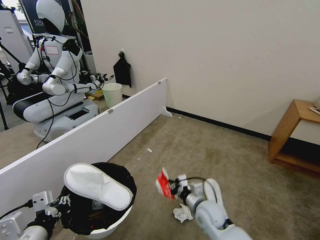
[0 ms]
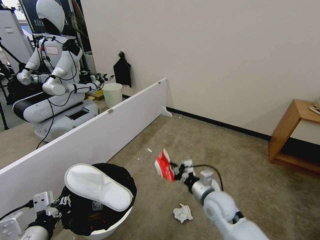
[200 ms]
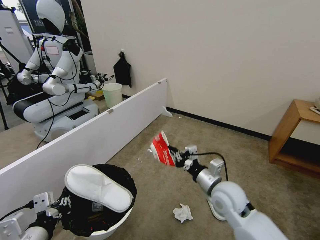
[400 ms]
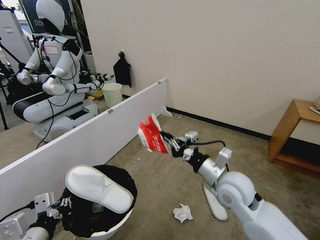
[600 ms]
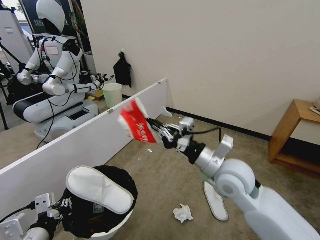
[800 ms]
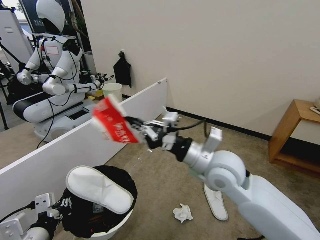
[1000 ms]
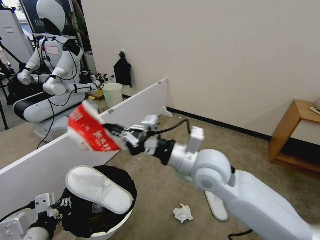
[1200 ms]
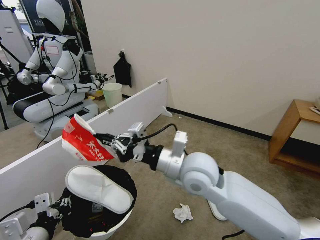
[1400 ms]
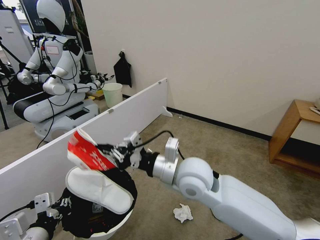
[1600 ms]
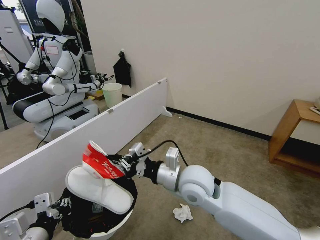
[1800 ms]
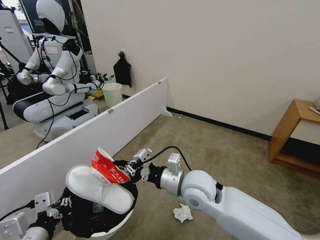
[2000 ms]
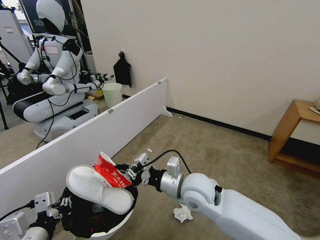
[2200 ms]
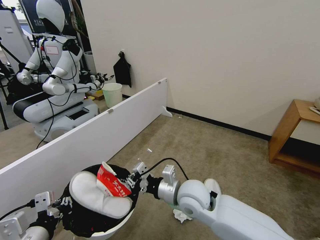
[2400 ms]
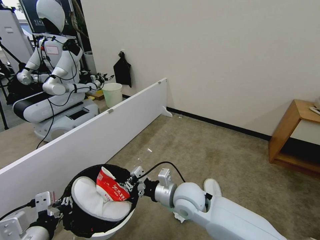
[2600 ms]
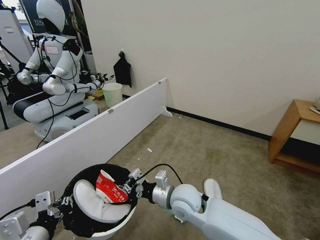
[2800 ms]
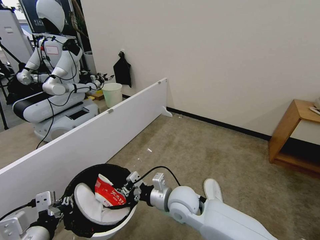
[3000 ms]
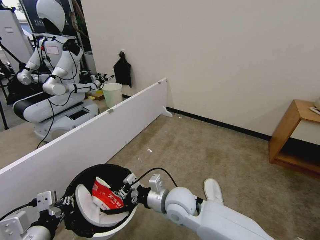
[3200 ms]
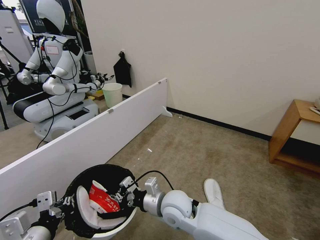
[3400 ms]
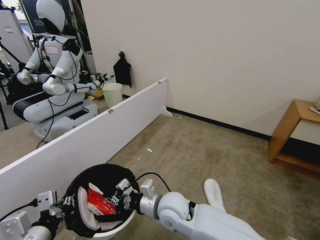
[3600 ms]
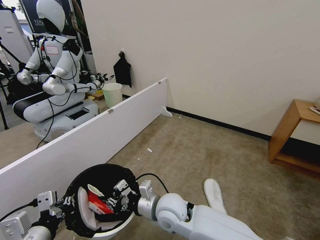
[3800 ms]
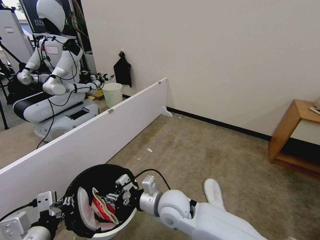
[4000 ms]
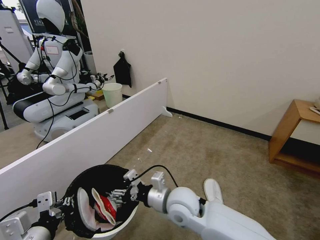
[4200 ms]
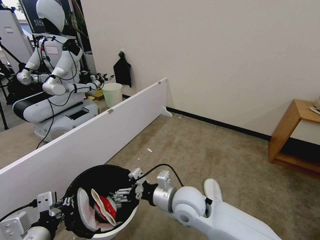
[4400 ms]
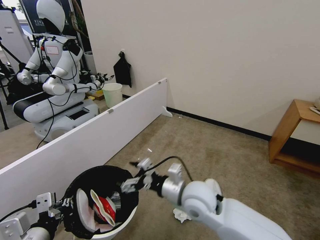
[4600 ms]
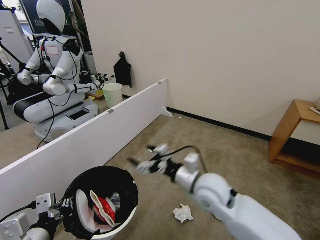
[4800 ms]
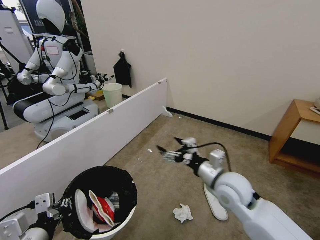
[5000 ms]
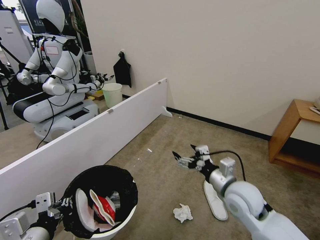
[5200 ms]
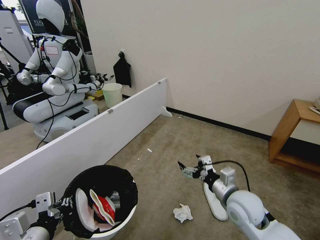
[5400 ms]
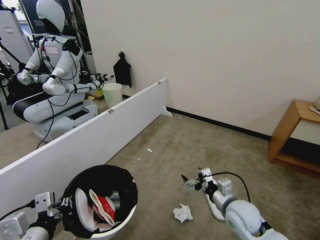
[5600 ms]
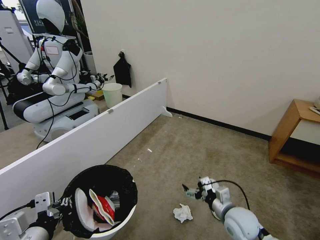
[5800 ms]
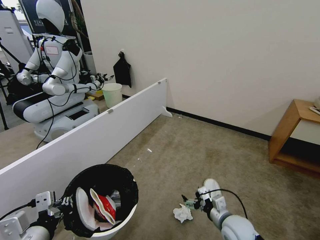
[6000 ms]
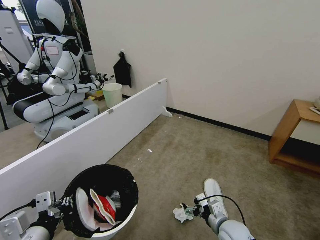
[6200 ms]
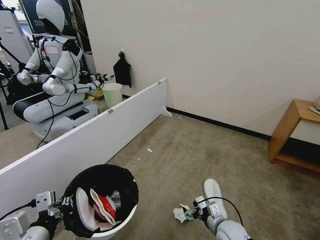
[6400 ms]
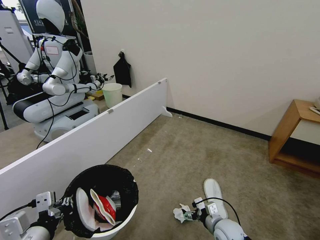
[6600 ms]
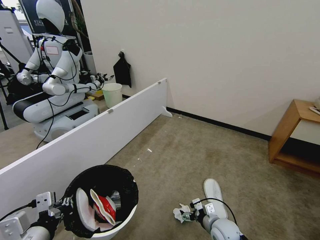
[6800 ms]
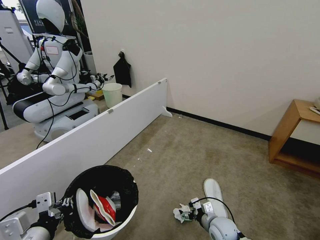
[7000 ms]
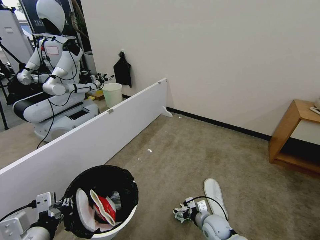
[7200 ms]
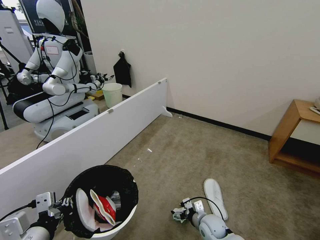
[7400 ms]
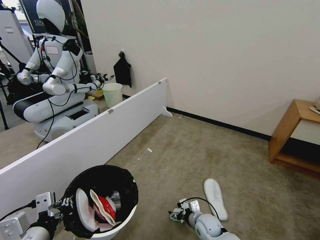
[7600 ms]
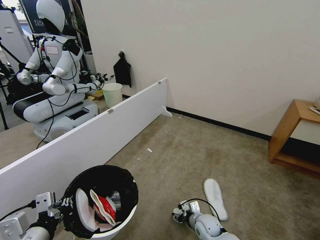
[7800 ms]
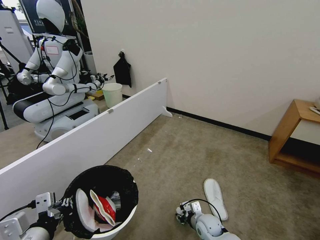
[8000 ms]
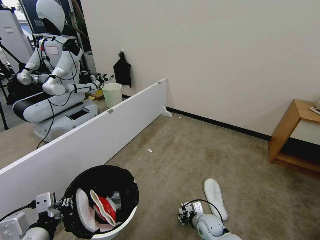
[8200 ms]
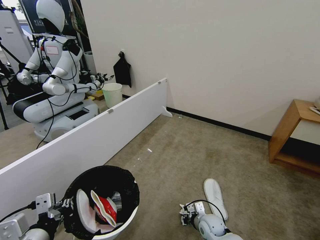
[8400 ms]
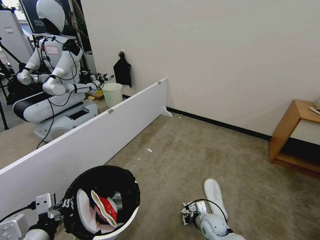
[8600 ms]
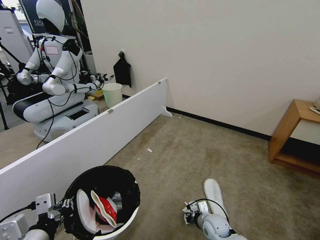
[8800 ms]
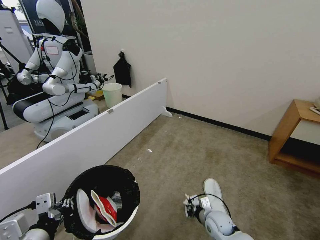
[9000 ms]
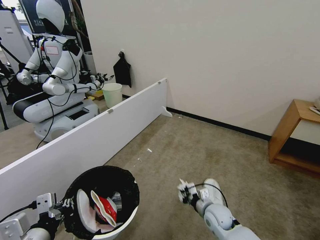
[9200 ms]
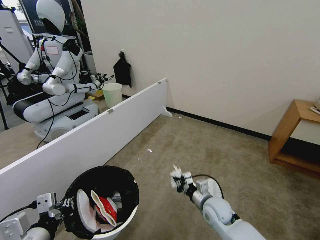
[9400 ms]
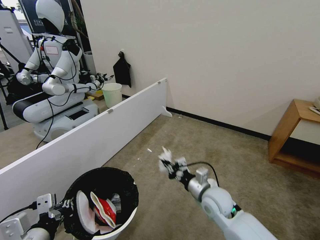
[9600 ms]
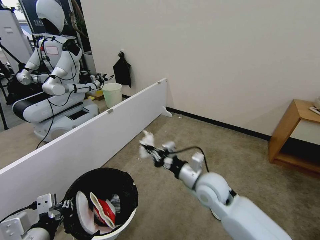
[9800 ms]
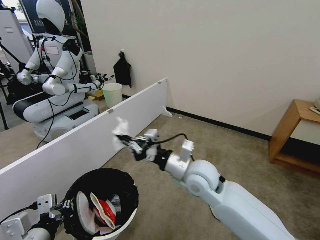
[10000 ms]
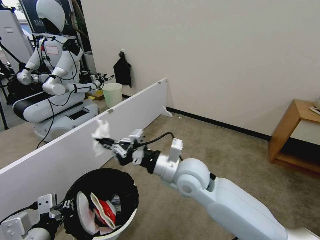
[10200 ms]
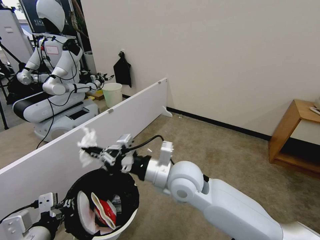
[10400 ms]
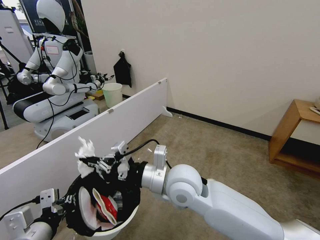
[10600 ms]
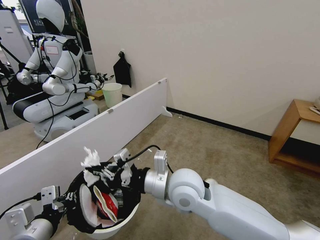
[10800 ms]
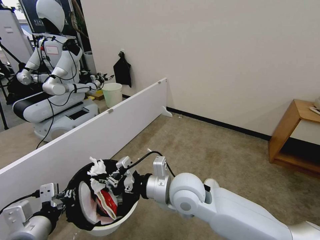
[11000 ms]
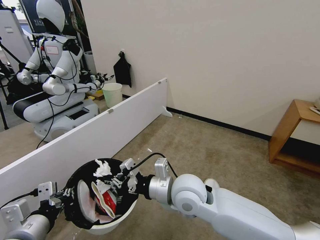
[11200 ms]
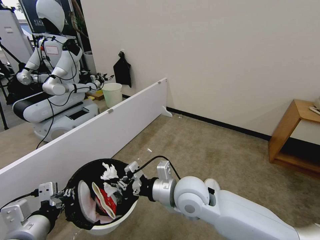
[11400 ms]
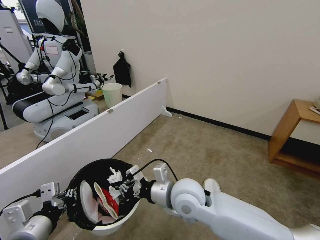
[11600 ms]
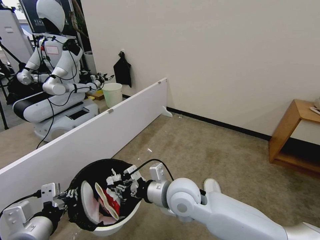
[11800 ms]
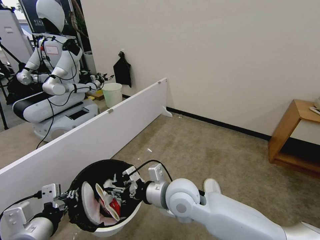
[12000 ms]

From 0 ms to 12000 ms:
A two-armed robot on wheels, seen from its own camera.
Task of the whole recording: Pick up the trash bin, then pick up the garbage from the floor and place it into the trash bin.
From 0 ms to 1600 ms: The right gripper moves upward and to the left, approximately 25 cm.
From 1600 ms to 3000 ms: The right gripper goes roughly 15 cm downward.
From 3000 ms to 4400 ms: The right gripper opens.
From 4400 ms to 6000 ms: The right gripper is displaced to the right and downward by some 20 cm.
From 6000 ms to 7600 ms: The right gripper travels downward and to the left by roughly 15 cm.
From 7600 ms to 9000 ms: The right gripper closes its fingers.
From 9000 ms to 10400 ms: The right gripper is displaced upward and to the left by about 35 cm.
From 10400 ms to 12000 ms: The right gripper shifts about 5 cm downward, and opens up.

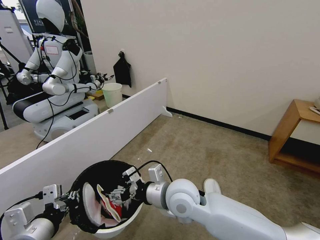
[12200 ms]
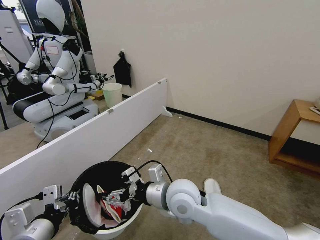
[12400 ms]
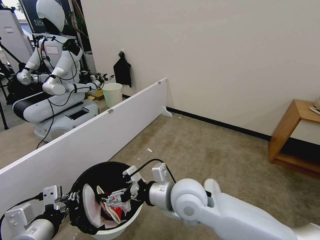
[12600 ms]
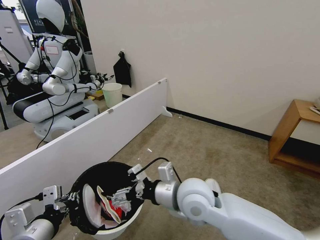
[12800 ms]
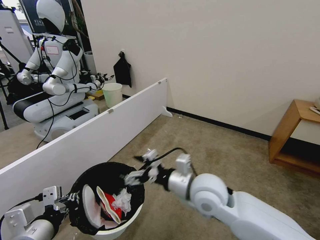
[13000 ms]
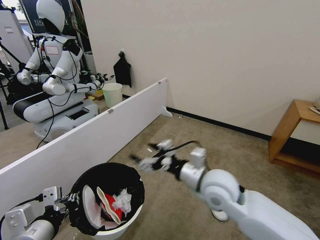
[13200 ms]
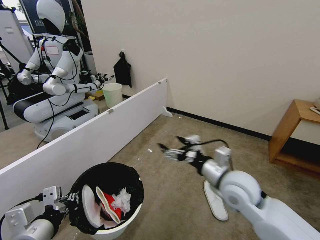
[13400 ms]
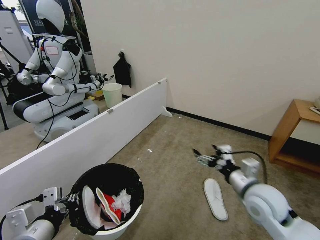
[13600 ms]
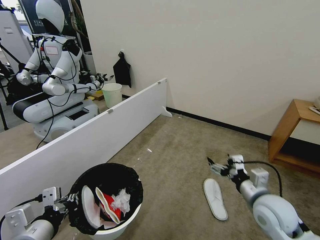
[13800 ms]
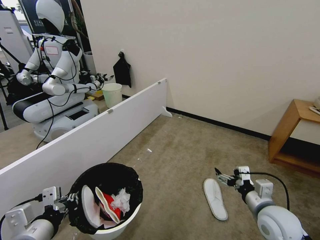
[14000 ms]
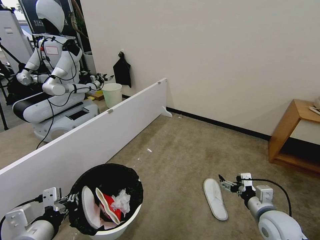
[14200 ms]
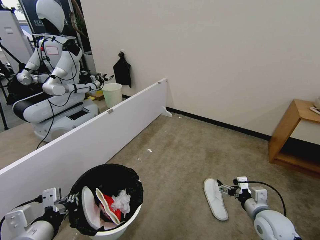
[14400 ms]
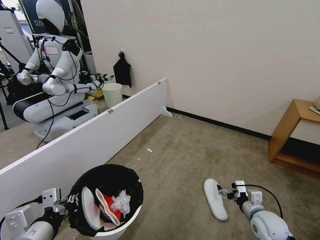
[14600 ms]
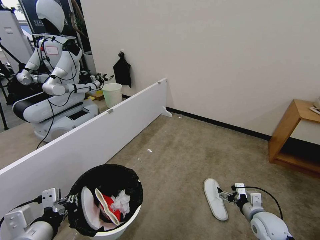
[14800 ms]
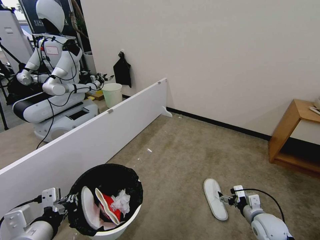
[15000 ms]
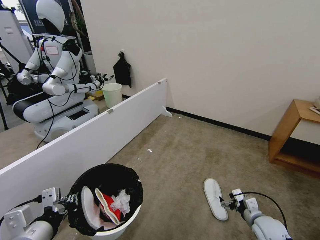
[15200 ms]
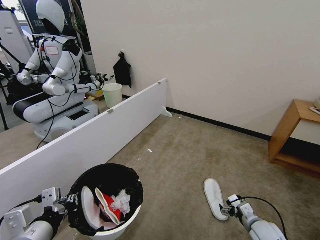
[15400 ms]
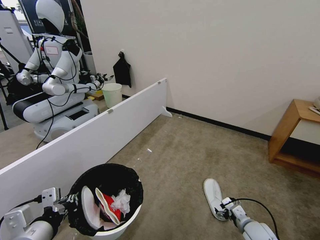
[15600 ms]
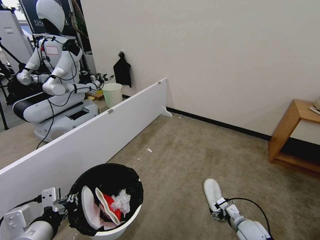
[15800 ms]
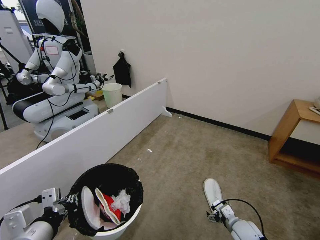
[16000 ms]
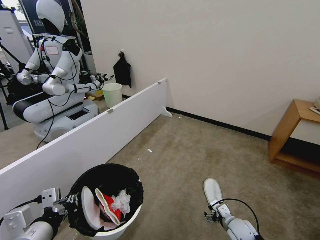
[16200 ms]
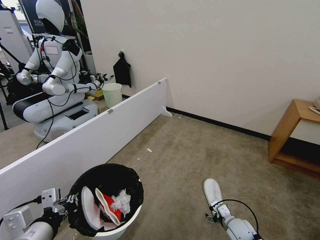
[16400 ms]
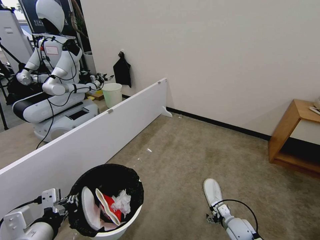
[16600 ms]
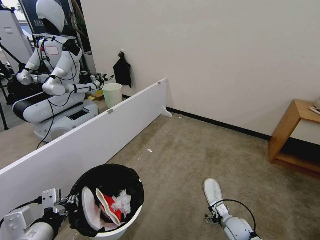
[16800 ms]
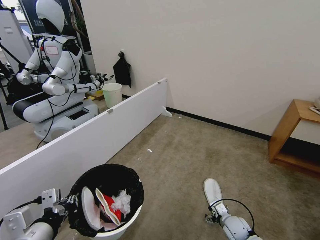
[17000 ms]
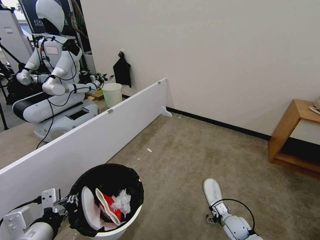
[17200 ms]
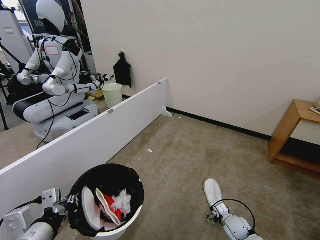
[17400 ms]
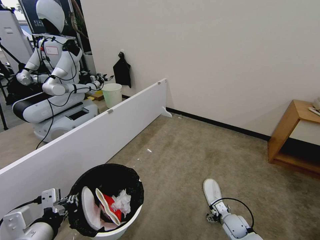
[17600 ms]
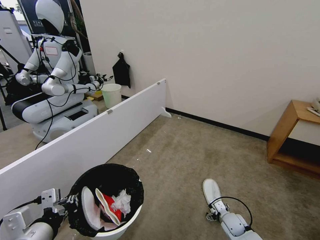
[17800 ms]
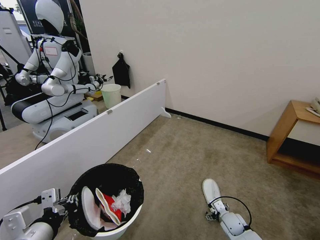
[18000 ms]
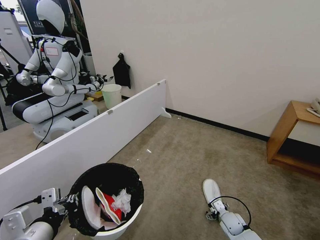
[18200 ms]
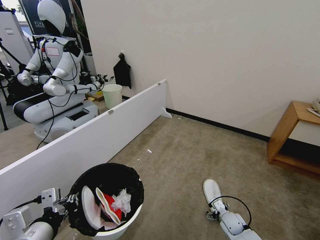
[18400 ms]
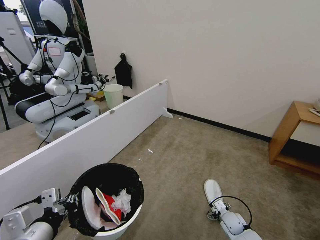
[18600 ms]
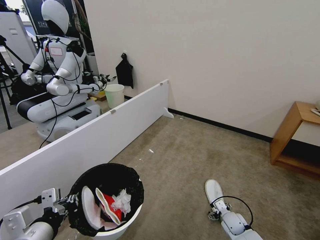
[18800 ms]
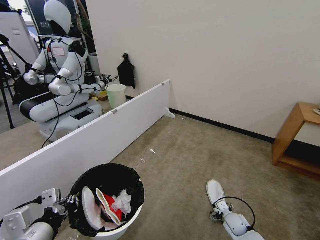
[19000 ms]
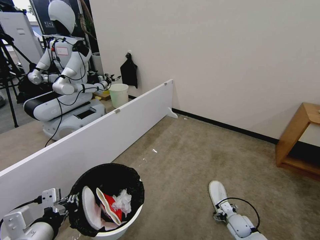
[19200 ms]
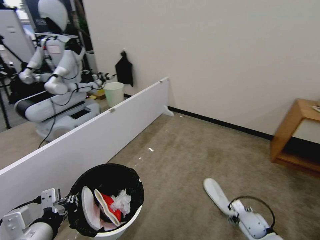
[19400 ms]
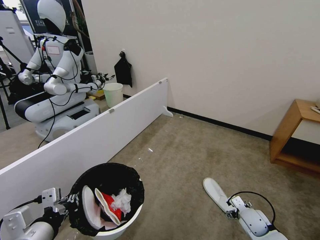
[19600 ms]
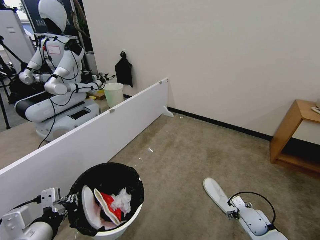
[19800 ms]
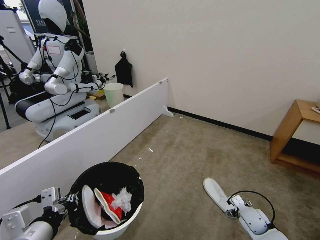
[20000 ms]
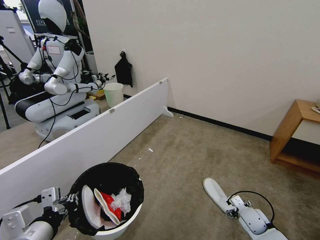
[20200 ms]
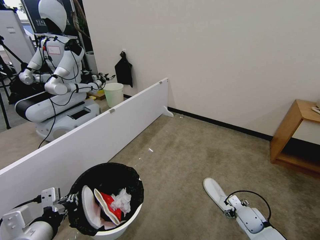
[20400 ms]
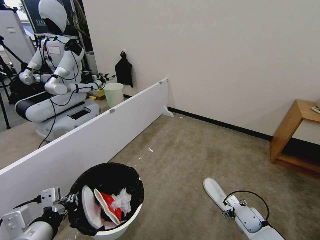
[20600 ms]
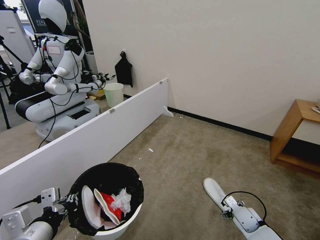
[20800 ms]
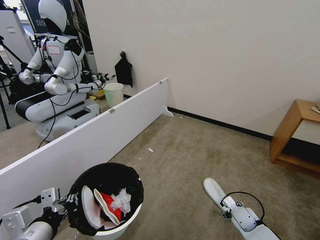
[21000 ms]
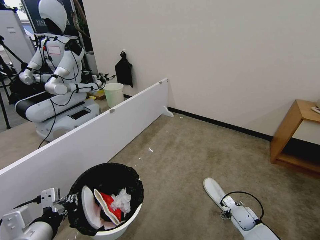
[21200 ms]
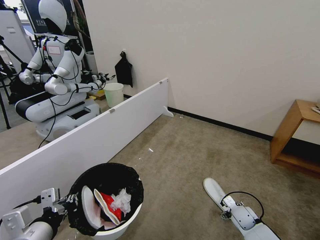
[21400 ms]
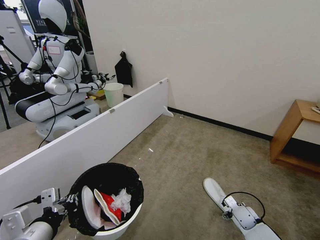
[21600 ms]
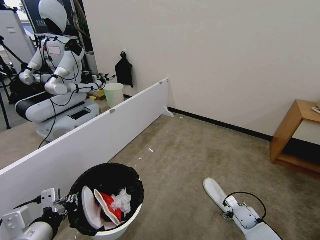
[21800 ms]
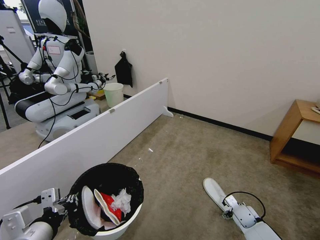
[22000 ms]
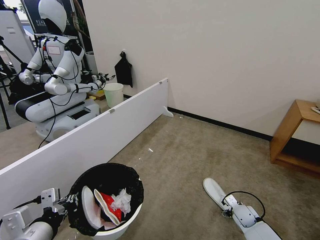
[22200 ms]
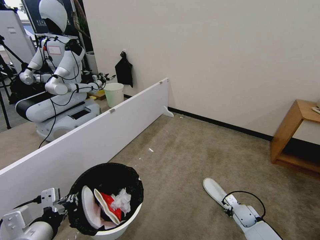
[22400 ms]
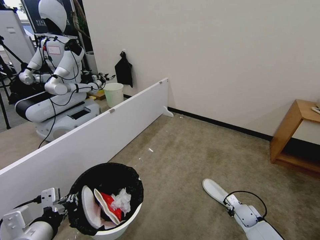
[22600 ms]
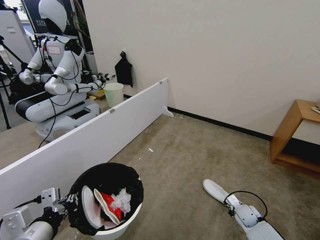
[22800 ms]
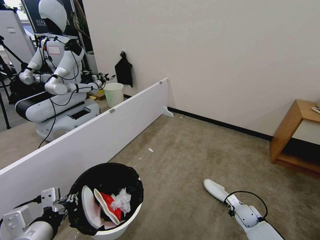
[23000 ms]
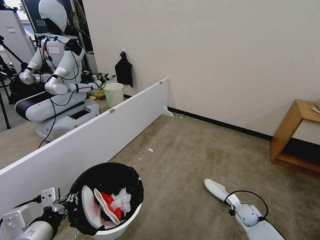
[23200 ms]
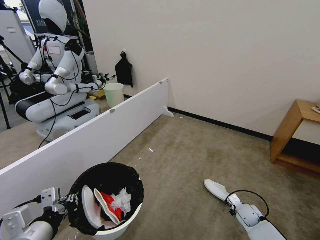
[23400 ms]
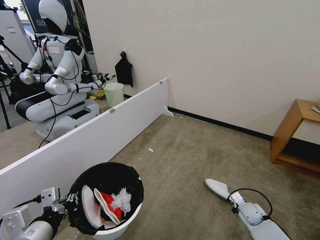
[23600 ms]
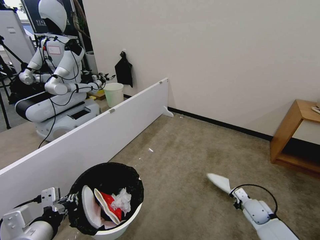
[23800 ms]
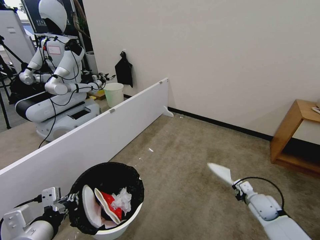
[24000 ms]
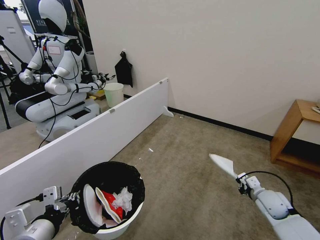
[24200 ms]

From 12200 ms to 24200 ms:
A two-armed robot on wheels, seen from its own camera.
Task of the whole recording: Pick up the trash bin, then pick up the garbage from the floor and place it into the trash bin.
From 12200 ms to 13800 ms: The right gripper travels to the right by roughly 25 cm.
From 13800 ms to 15200 ms: The right gripper travels downward and to the right by some 20 cm.
From 15200 ms to 16600 ms: The right gripper goes roughly 10 cm downward and to the left.
From 16600 ms to 18200 ms: The grippers move only a little.
From 18200 ms to 19800 ms: The right gripper is displaced upward and to the right by about 10 cm.
From 19800 ms to 21200 ms: The grippers move only a little.
From 21200 ms to 22600 ms: The right gripper closes.
From 22600 ms to 24200 ms: The right gripper is displaced upward by approximately 15 cm, and closes.
